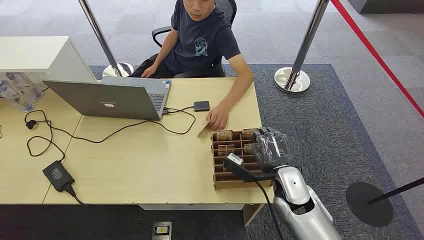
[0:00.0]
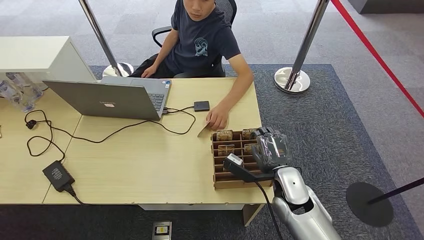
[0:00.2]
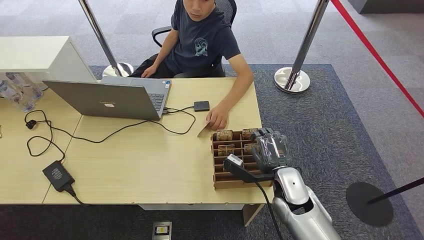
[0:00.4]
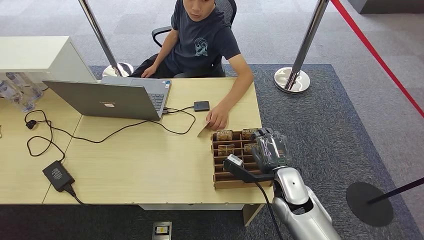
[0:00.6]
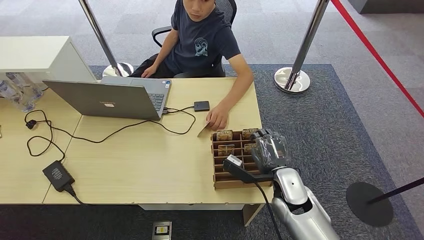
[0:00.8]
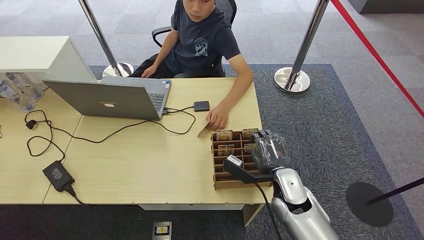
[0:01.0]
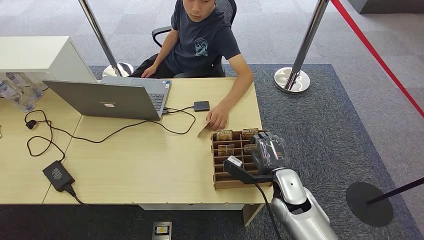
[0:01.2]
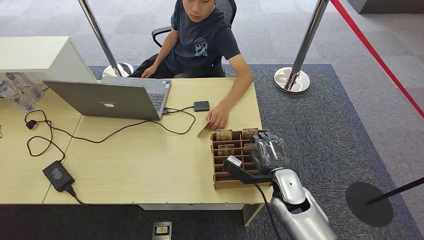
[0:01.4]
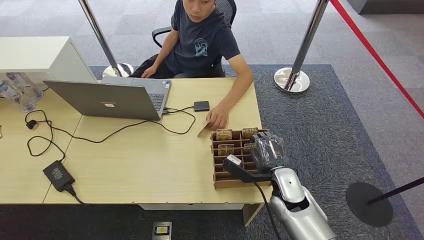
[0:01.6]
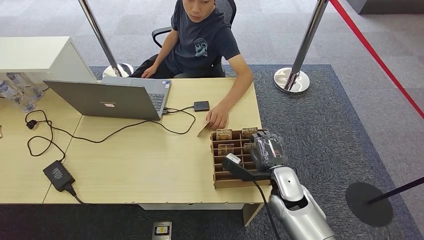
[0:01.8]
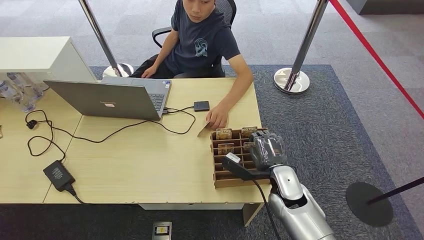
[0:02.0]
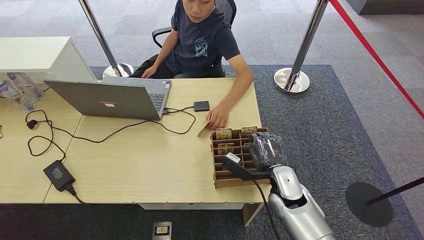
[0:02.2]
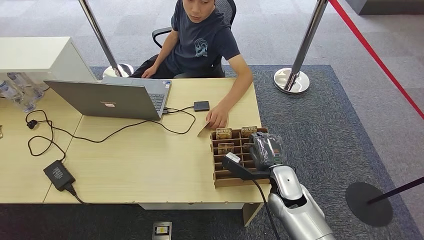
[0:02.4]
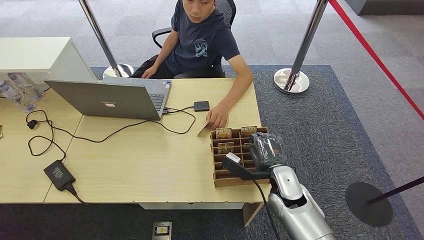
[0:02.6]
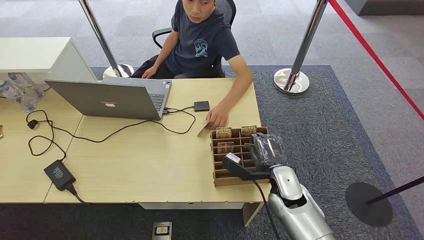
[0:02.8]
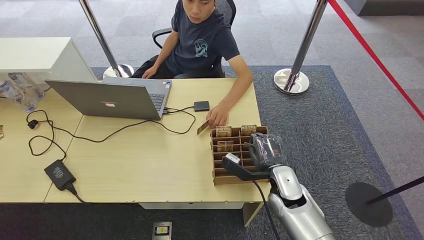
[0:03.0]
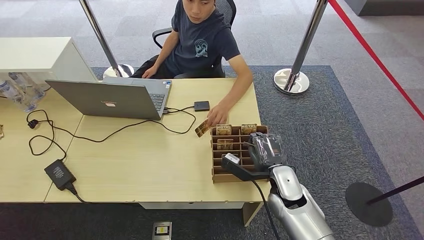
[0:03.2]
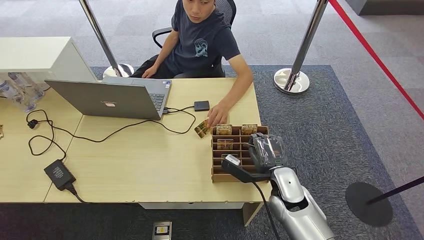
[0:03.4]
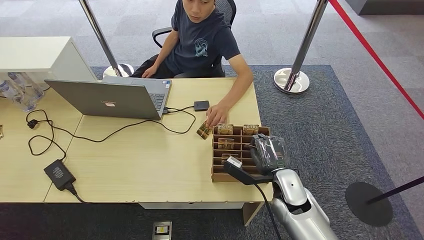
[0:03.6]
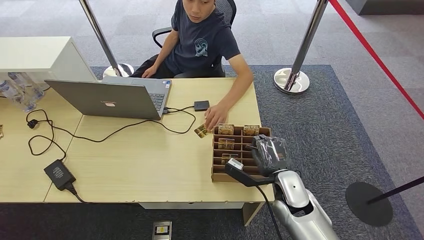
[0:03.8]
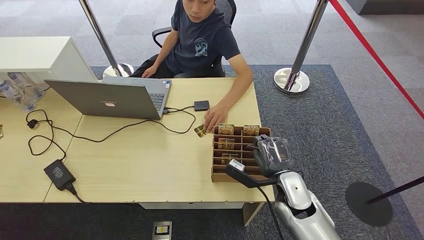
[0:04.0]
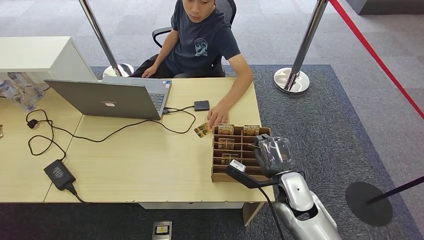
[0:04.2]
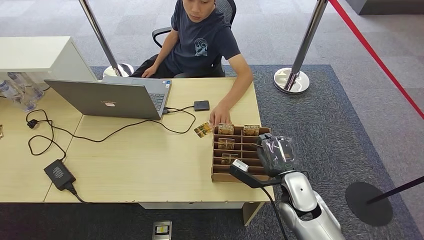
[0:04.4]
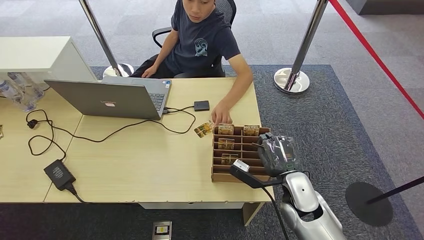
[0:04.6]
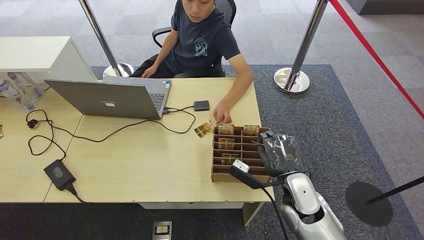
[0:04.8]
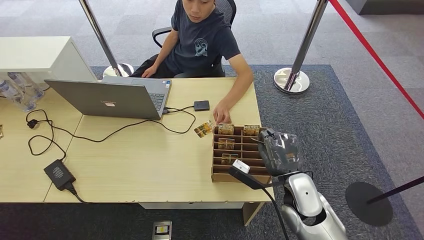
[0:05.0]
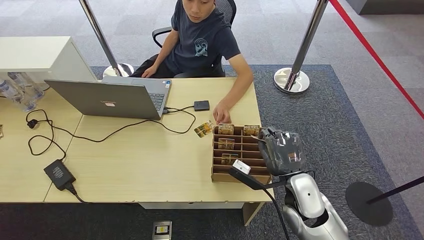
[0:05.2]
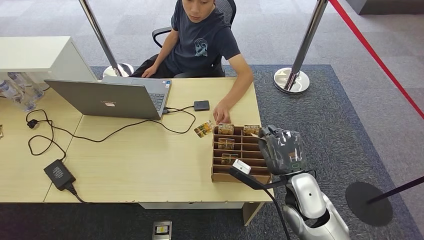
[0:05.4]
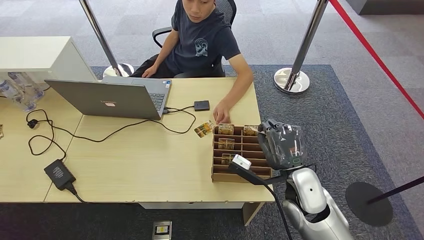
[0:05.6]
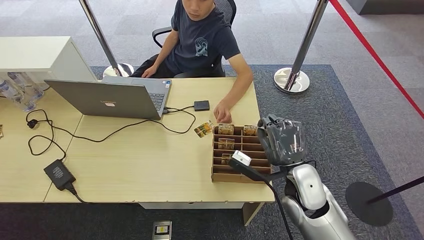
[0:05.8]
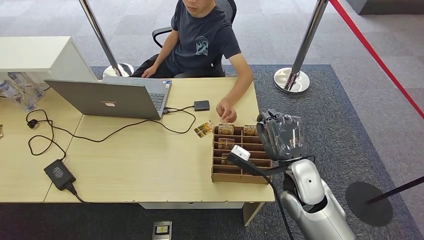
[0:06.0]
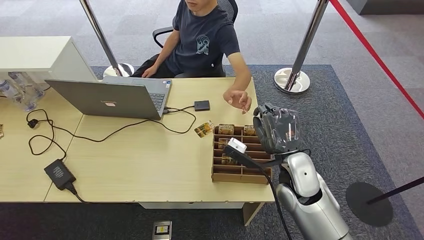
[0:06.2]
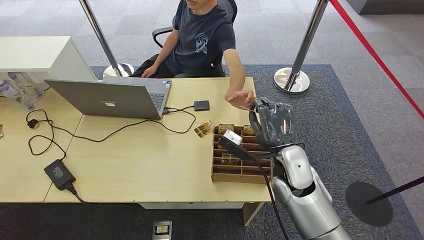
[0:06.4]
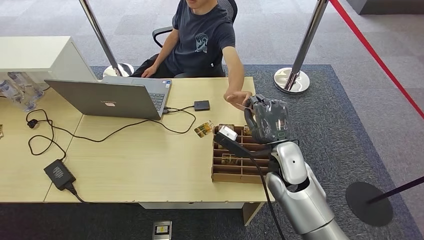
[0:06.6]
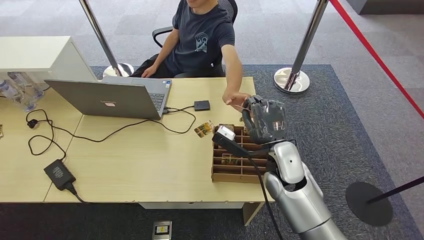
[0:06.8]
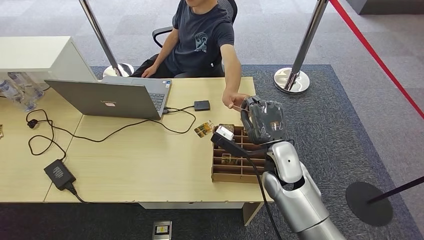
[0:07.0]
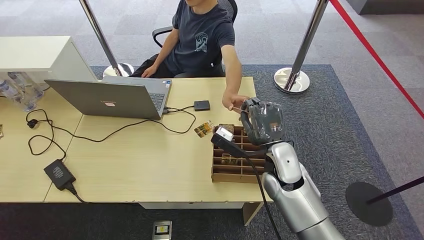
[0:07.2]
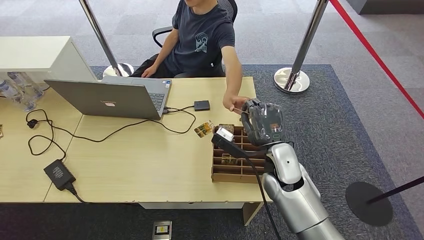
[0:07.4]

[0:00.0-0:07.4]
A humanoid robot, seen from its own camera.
Step, 0:00.0 to 0:05.4: Pick up the room card from the card holder.
Step, 0:05.6 to 0:07.4: Hand the room card to the target.
0:01.4 to 0:03.0: Both hands stay about where they are.
0:03.0 to 0:04.4: The hands stay close to where they were, moving slightly.
0:04.4 to 0:06.0: The right hand heads upward, covering approximately 5 cm.
0:06.0 to 0:07.4: The hands move only a little.

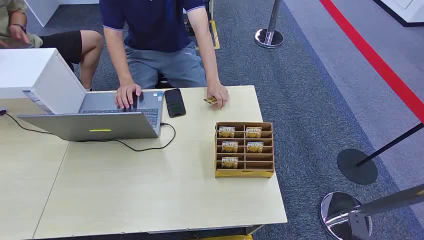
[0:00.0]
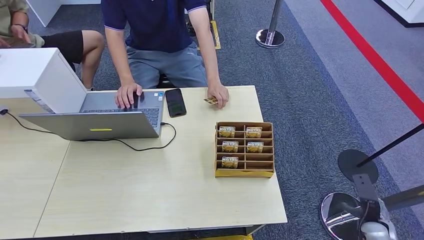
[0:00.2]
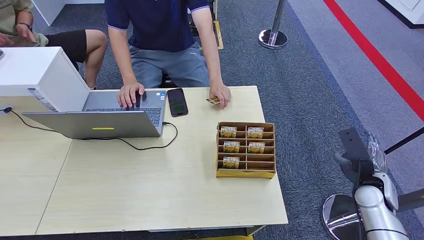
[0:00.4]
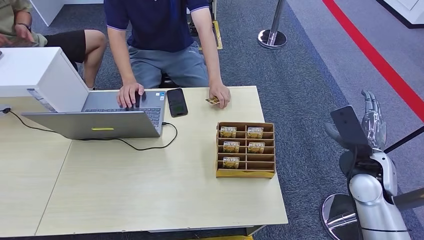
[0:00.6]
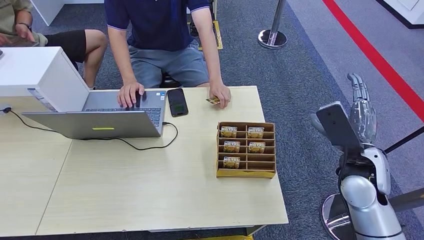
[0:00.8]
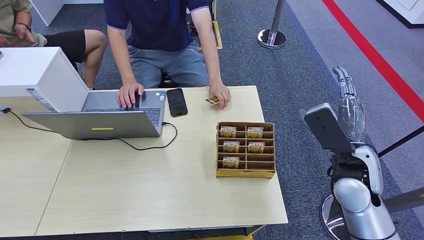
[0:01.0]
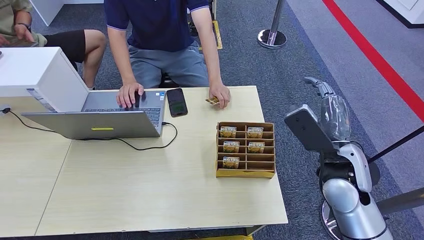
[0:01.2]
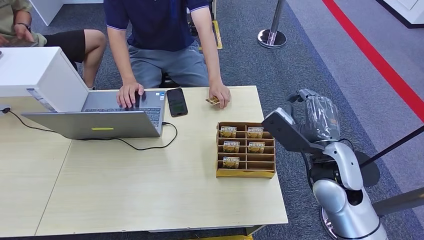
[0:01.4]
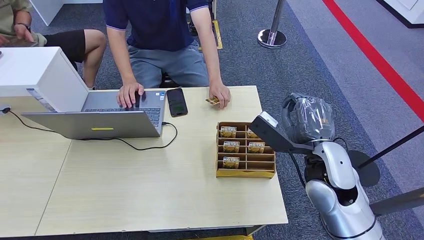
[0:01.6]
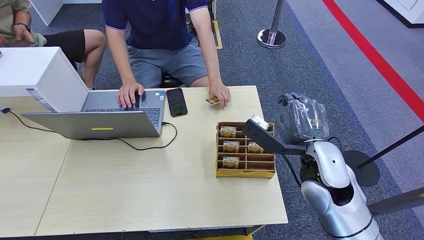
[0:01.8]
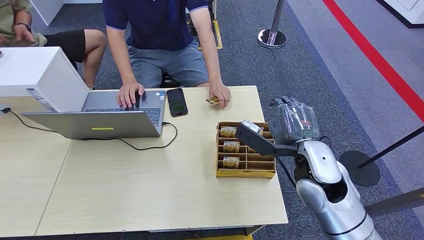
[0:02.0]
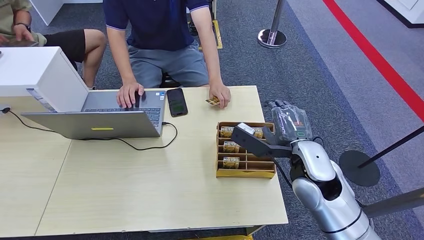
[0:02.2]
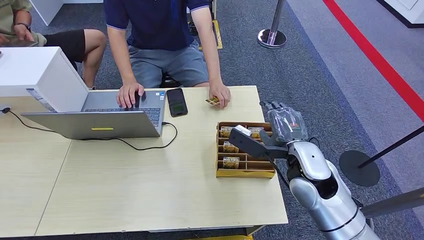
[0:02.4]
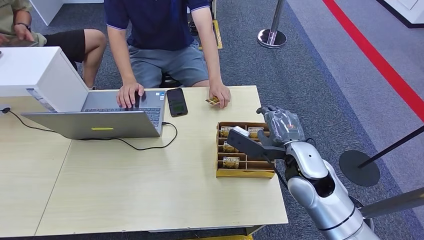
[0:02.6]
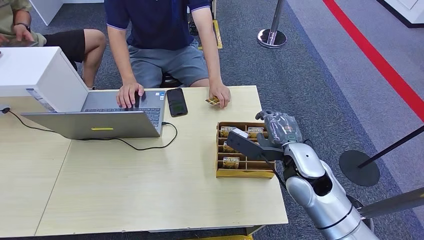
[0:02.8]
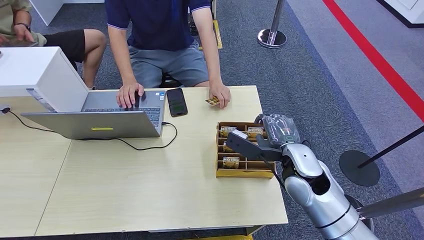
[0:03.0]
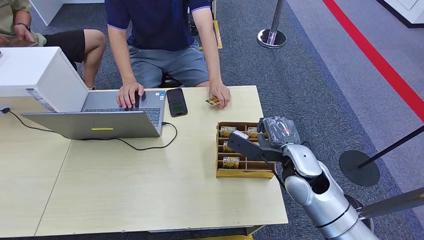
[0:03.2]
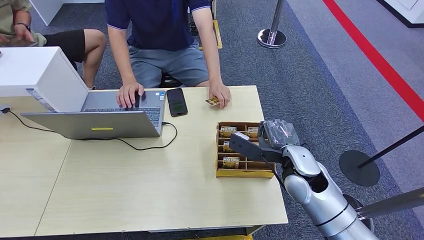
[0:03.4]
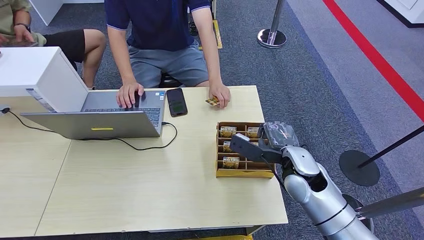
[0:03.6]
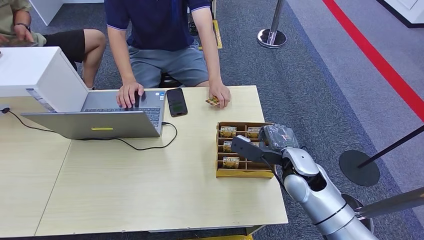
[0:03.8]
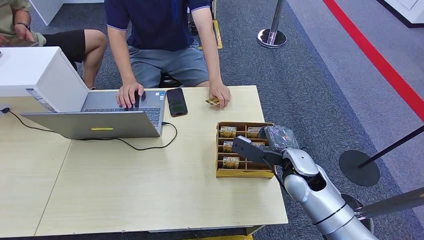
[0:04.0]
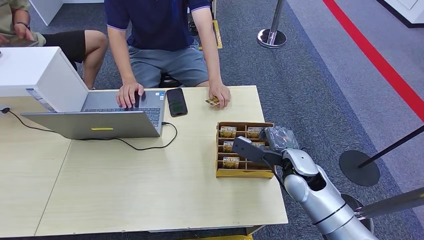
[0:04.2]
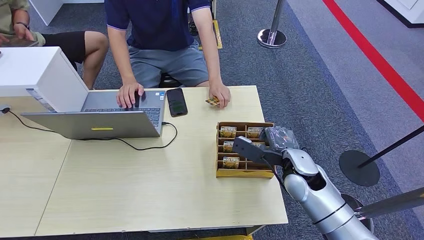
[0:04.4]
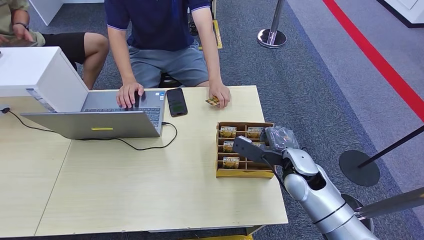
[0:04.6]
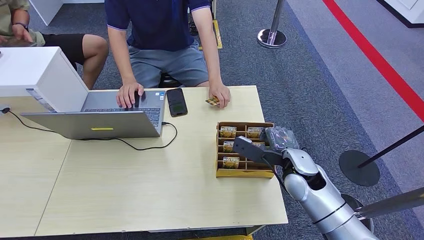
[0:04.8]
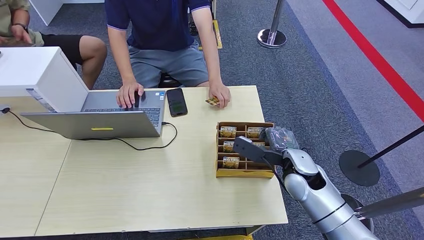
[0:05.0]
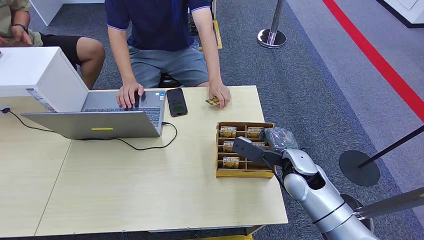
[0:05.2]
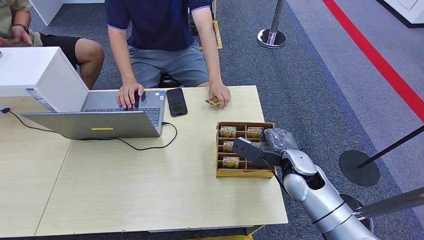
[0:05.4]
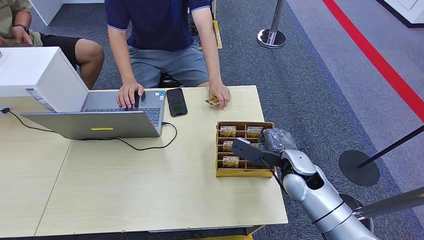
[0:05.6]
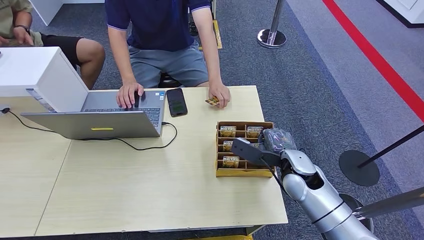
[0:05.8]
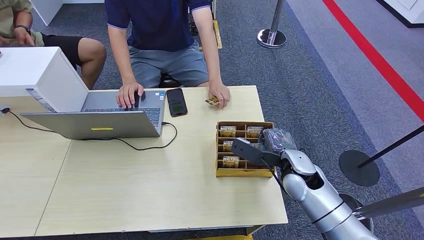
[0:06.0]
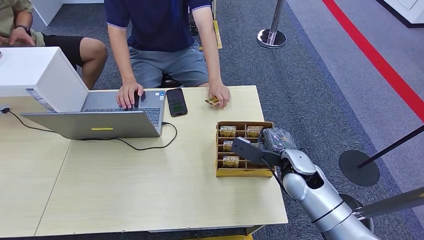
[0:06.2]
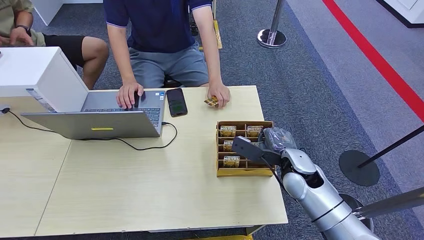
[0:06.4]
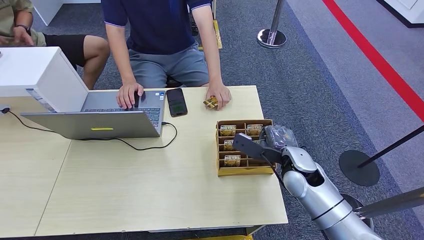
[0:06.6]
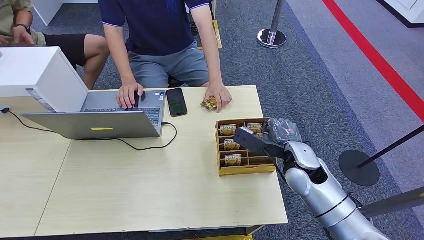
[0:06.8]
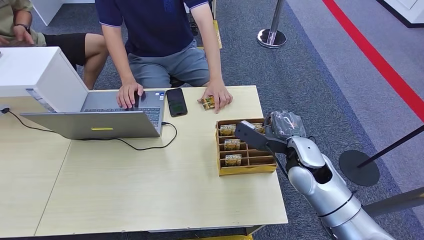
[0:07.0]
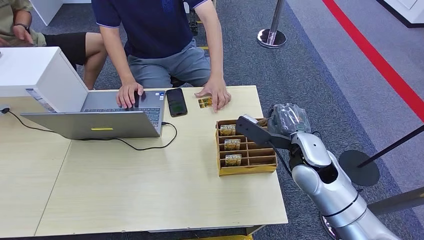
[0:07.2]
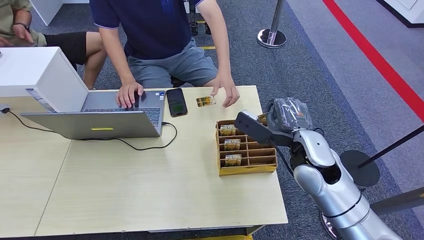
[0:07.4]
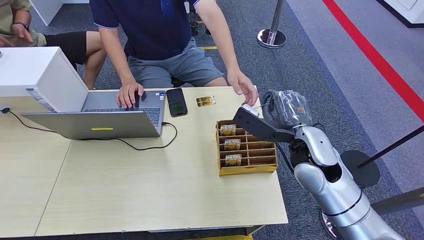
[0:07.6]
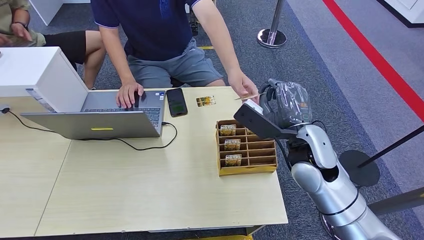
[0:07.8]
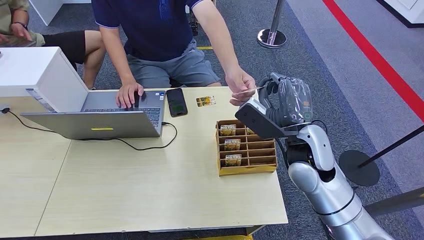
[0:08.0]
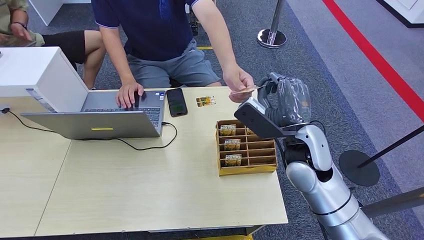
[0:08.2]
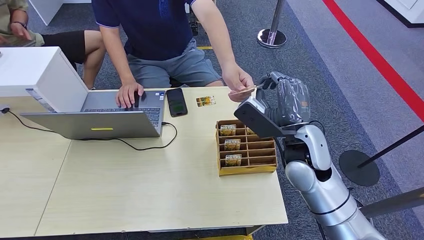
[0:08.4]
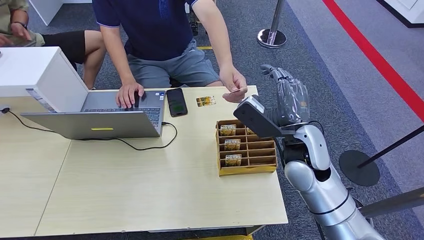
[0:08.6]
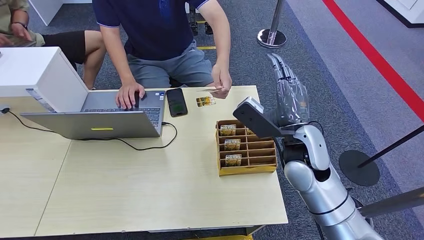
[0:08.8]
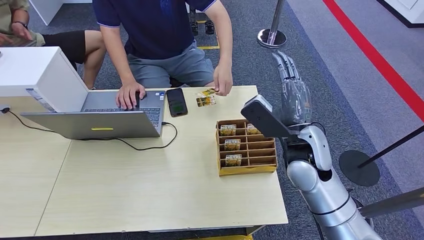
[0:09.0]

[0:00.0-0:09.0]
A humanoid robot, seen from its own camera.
Step, 0:00.0 to 0:07.4: Pick up the room card from the card holder.
Step, 0:07.6 to 0:09.0: Hand the room card to the target.
0:01.6 to 0:03.0: The right hand is displaced downward by some 5 cm.
0:03.0 to 0:04.4: There are only small adjustments of the hands.
0:04.4 to 0:06.0: The two hands keep their place.
0:06.0 to 0:07.6: The right hand travels upward by some 10 cm.
0:07.6 to 0:09.0: The right hand moves about 5 cm.
